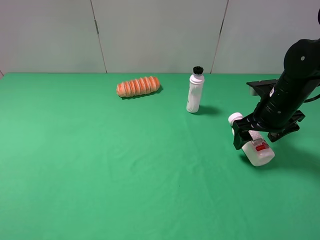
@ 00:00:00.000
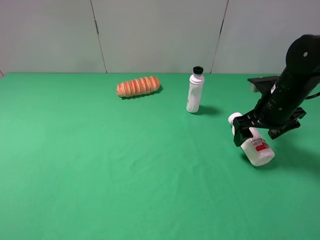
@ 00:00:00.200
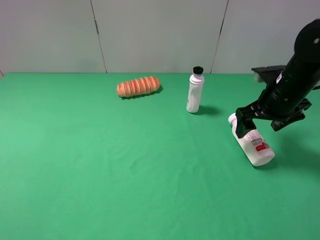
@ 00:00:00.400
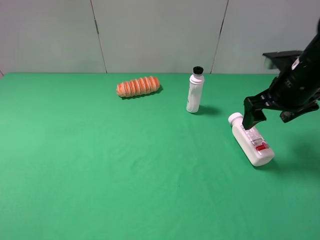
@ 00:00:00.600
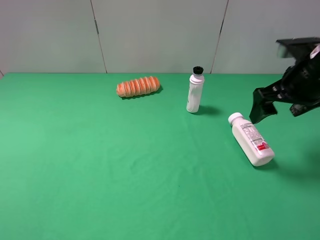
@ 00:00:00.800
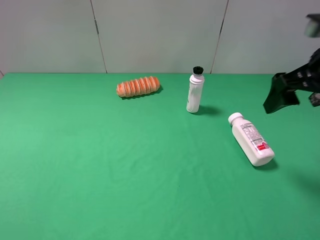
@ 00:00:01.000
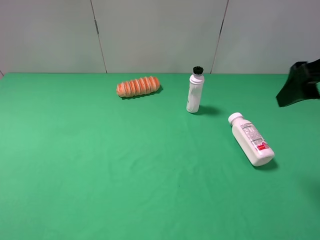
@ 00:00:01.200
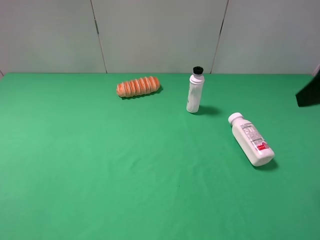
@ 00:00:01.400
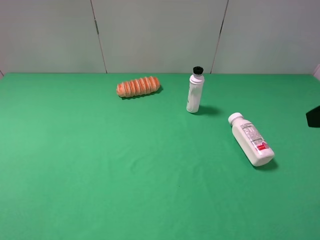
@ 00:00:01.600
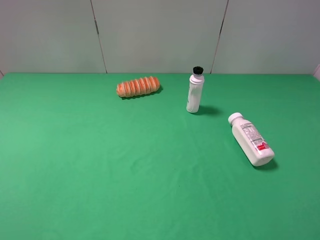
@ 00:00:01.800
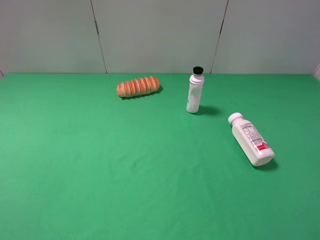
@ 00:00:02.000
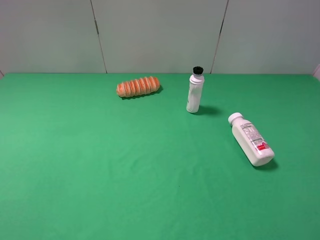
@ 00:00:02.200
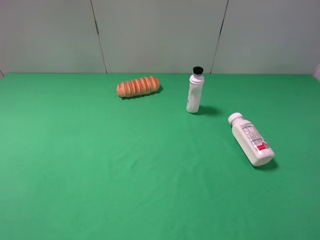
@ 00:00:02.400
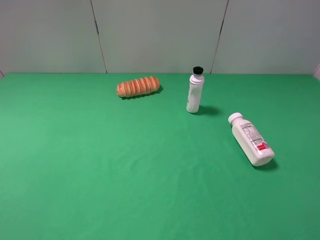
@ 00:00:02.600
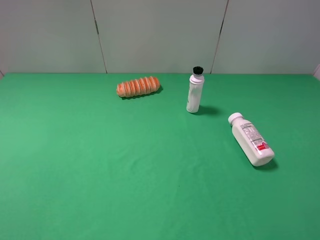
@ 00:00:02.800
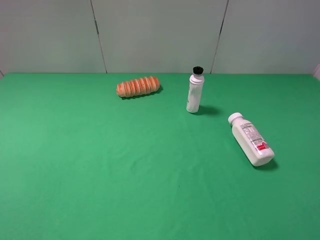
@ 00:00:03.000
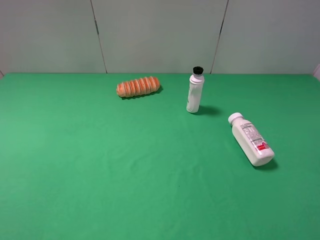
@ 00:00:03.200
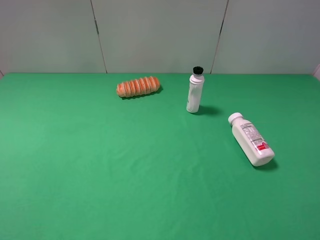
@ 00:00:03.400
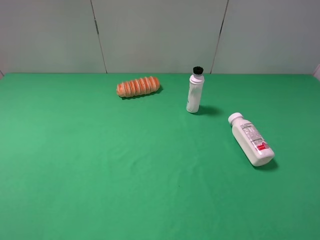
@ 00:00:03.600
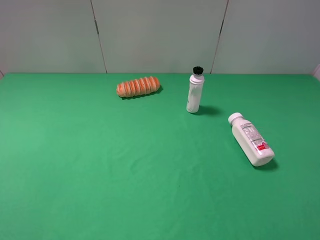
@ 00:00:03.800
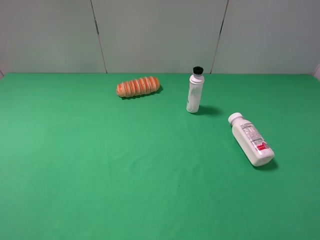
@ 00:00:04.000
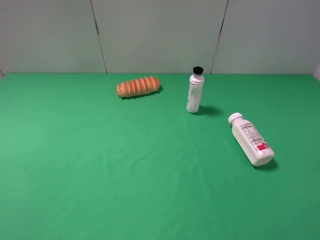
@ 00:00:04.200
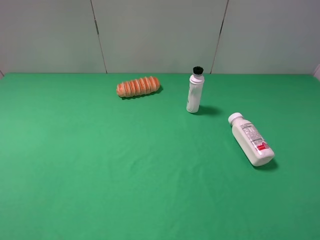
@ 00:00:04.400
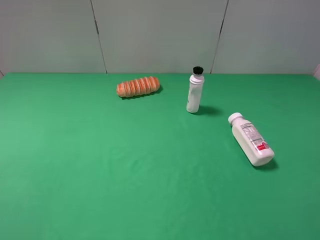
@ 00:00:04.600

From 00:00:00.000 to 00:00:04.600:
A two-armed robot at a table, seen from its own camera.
Task of the whole recording: use the left gripper to pick up the item and transfer it from the left gripper to the right gripper.
From 00:00:00.000 to 00:00:01.600: The right gripper goes roughly 25 cm backward and upward.
